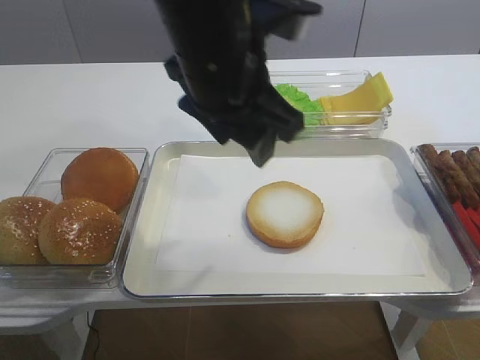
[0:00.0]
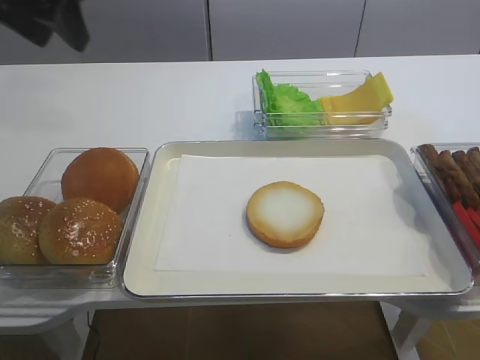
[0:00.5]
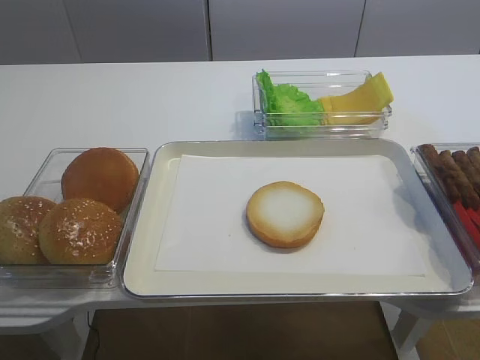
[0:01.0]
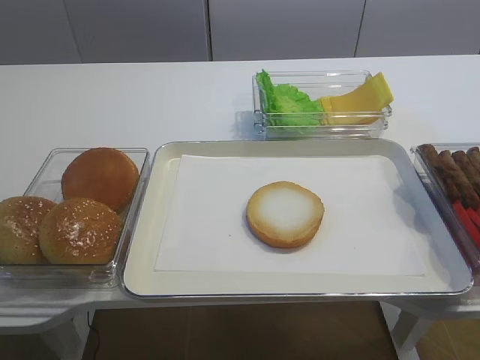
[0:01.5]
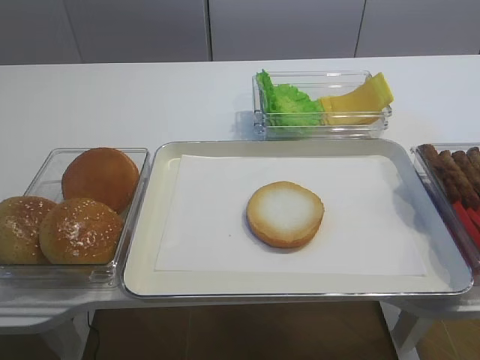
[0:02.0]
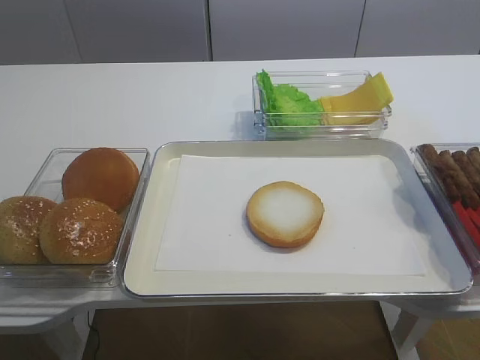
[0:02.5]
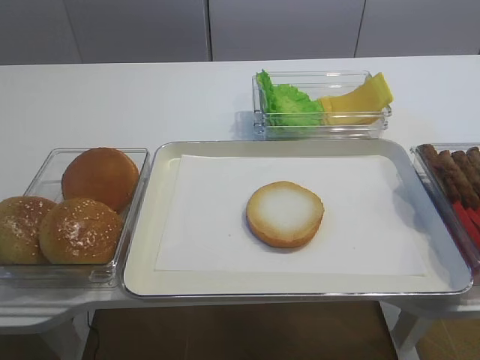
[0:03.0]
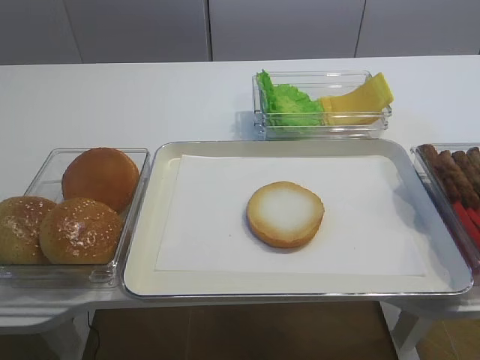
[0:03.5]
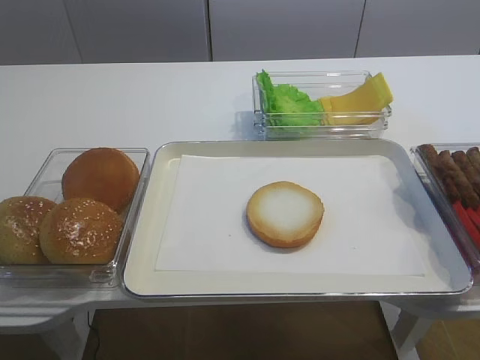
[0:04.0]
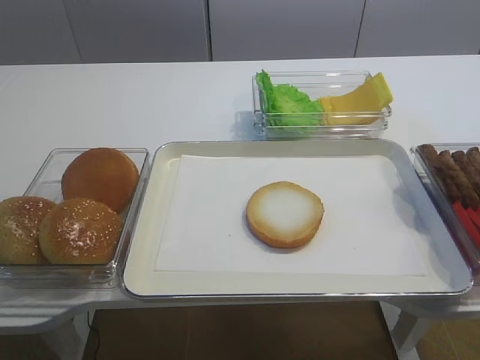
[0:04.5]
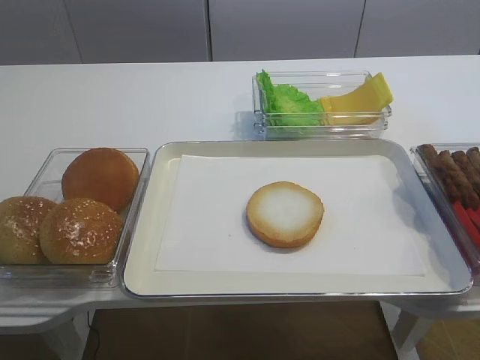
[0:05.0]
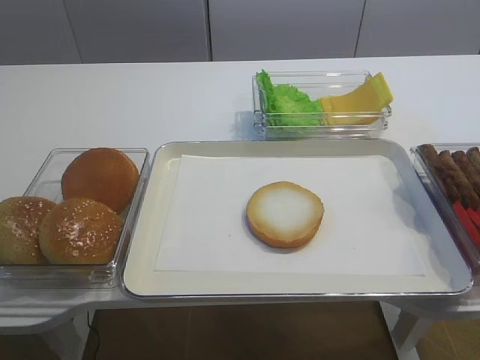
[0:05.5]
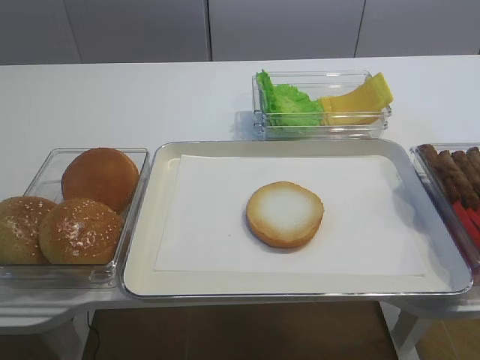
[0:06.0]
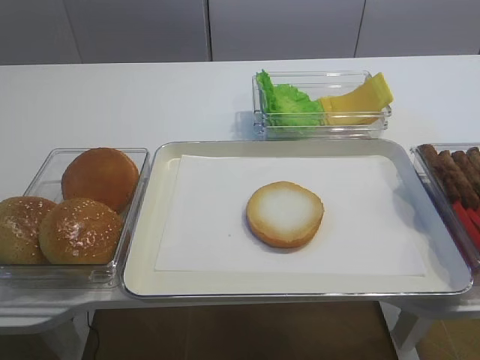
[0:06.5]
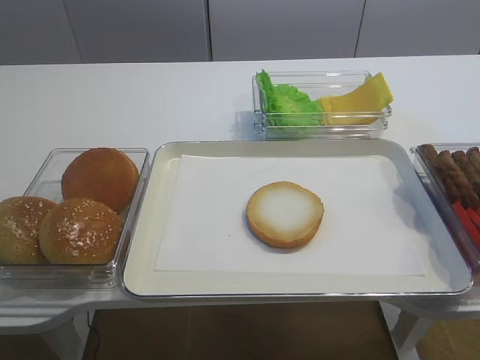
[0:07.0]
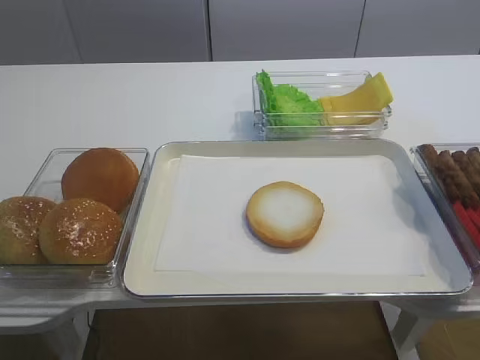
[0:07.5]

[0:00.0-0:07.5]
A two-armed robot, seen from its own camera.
0:00.0 to 0:02.0: The left gripper shifts roughly 40 cm to the left and backward.
0:04.0 to 0:07.5: Neither gripper changes place.

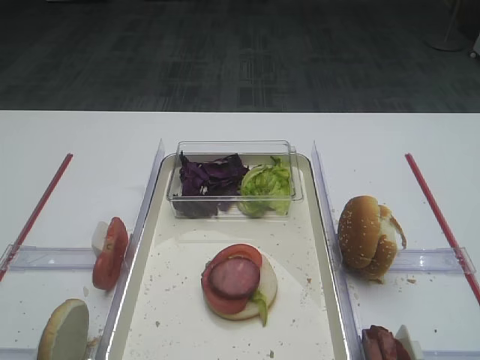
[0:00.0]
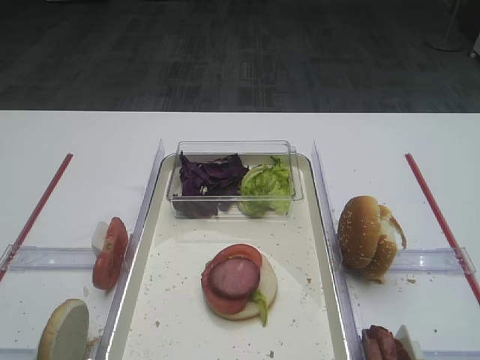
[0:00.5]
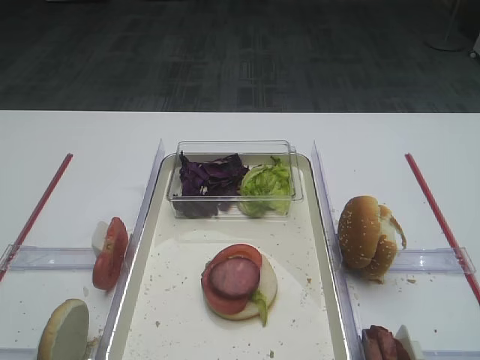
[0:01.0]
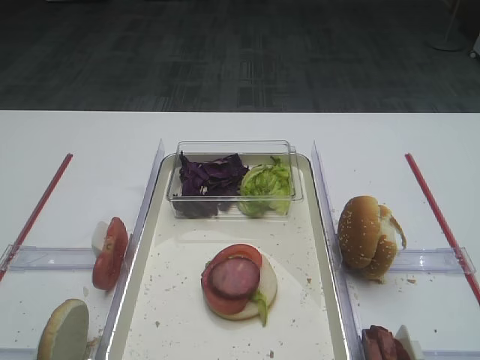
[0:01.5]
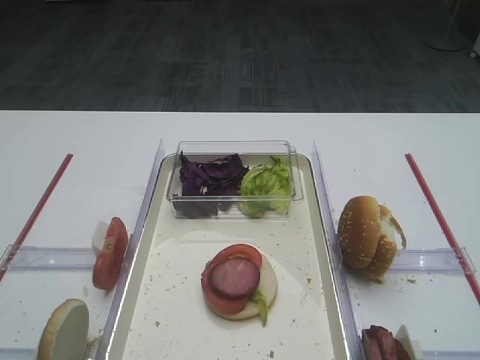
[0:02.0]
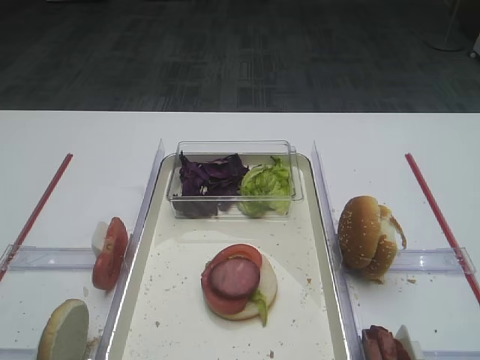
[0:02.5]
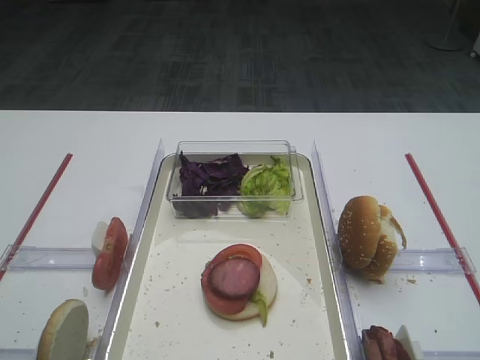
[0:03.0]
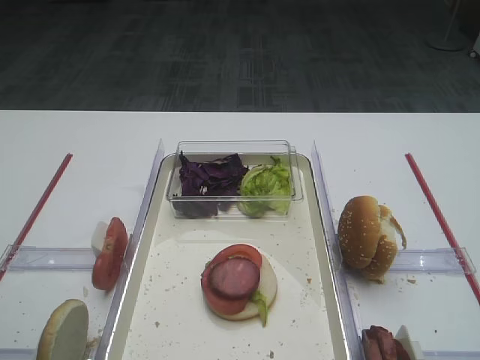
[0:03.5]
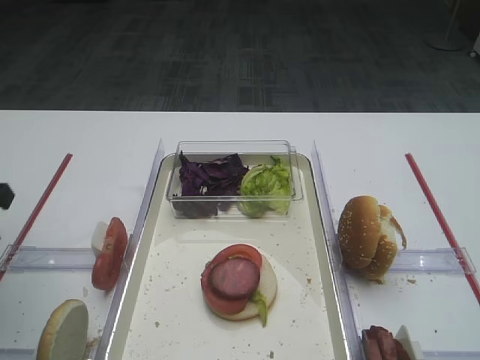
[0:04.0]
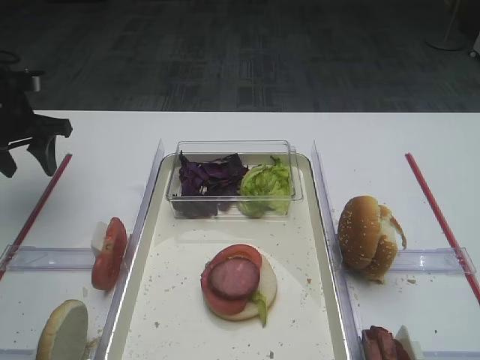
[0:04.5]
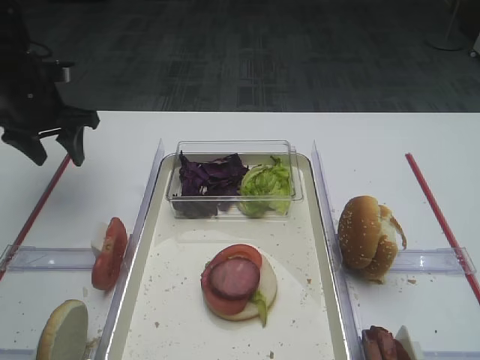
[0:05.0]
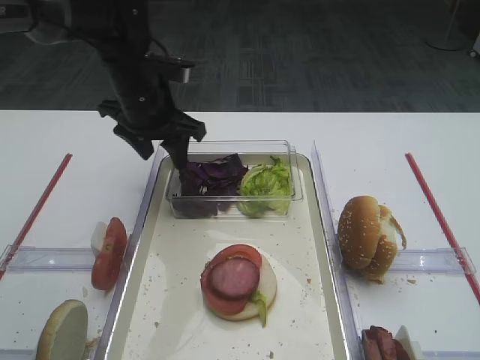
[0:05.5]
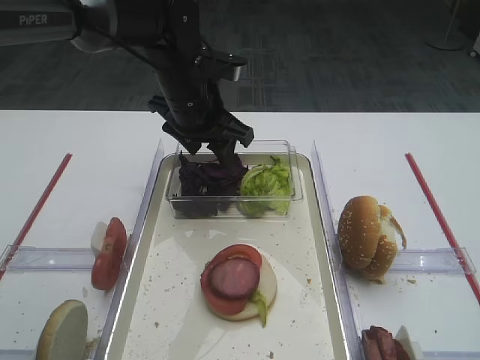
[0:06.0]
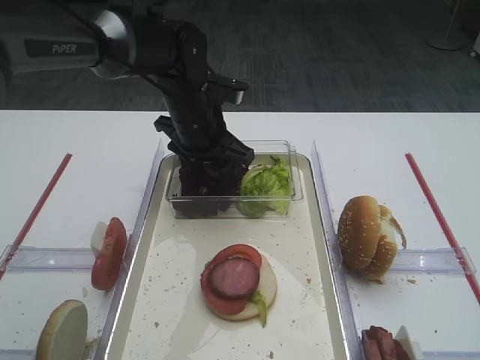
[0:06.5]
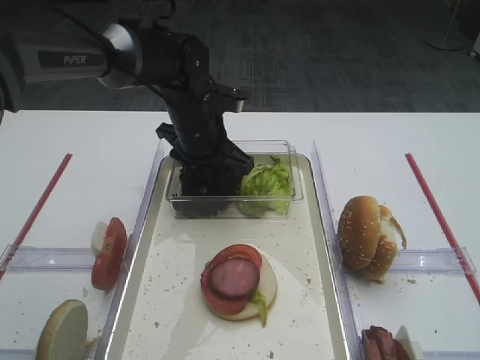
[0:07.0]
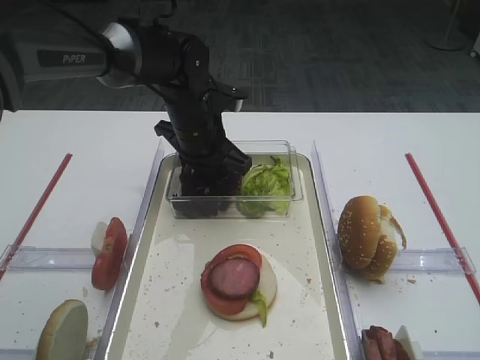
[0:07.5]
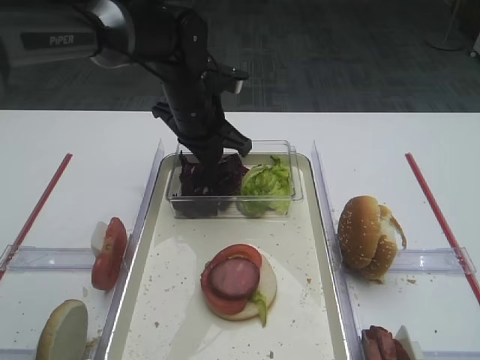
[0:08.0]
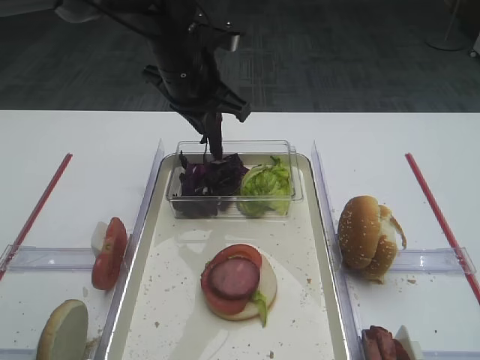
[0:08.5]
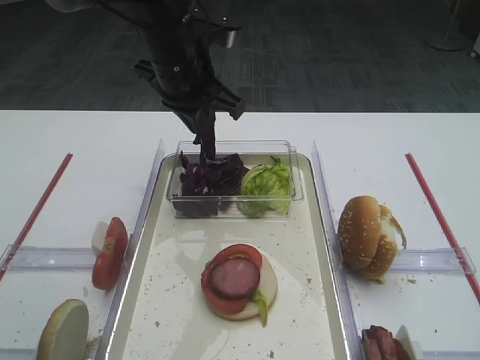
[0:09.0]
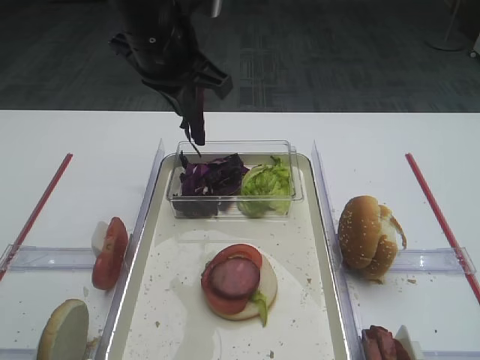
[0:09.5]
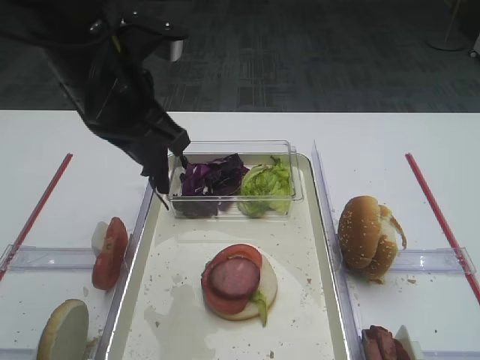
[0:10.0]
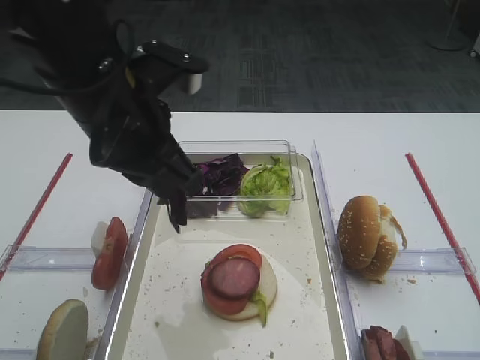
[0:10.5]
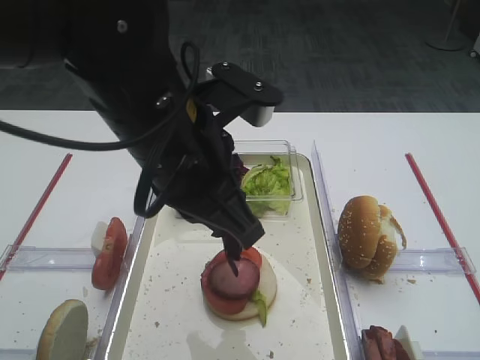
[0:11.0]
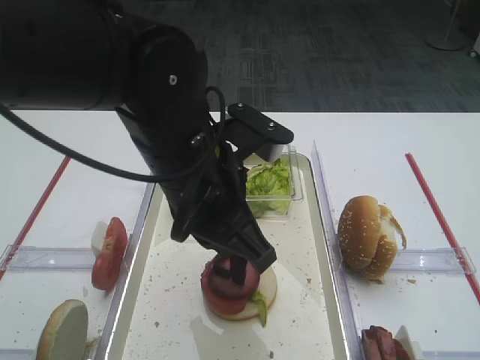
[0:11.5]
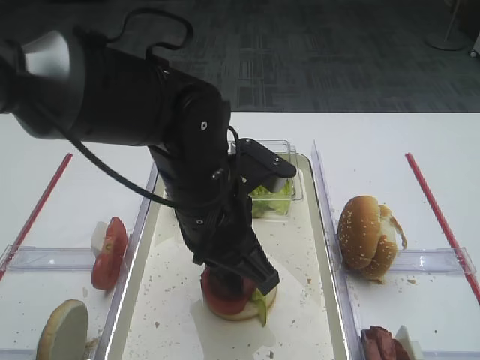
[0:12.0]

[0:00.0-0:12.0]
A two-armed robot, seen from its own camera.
Step, 0:00.0 to 0:08.0: Pick up the purple cabbage with the left gripper.
0:02.0 to 0:04.0: The left gripper heads forward, covering some 25 cm.
0:04.0 to 0:06.0: The left gripper moves to the right and forward, approximately 30 cm.
0:06.0 to 0:08.0: The left gripper closes.
0:08.0 to 0:10.0: The left gripper goes approximately 15 cm backward, upward and to the left.
0:10.0 to 0:12.0: The left gripper travels to the right and downward by about 15 cm.

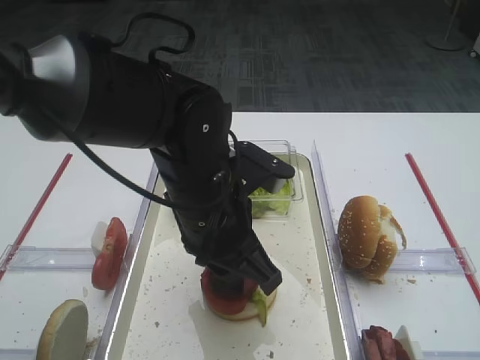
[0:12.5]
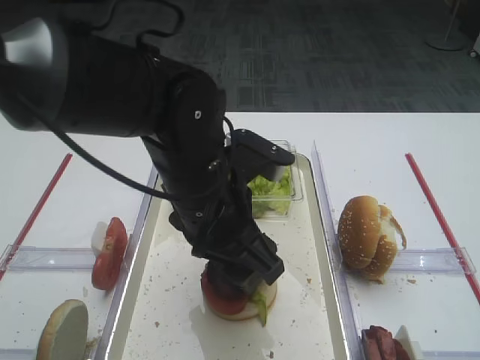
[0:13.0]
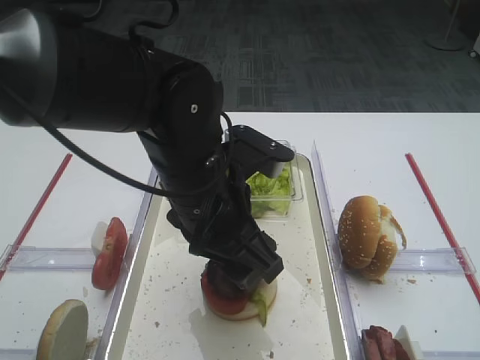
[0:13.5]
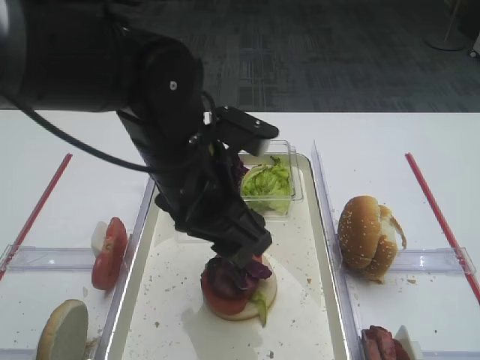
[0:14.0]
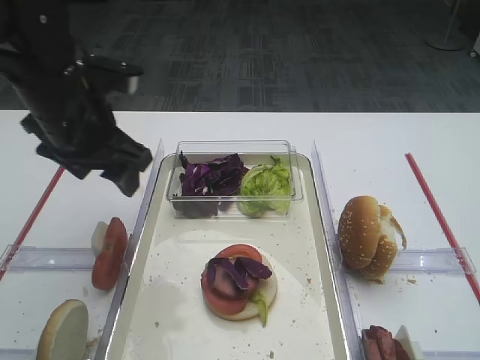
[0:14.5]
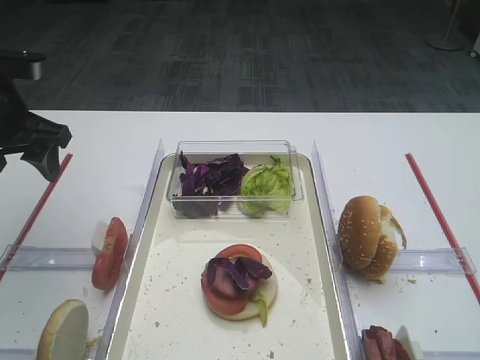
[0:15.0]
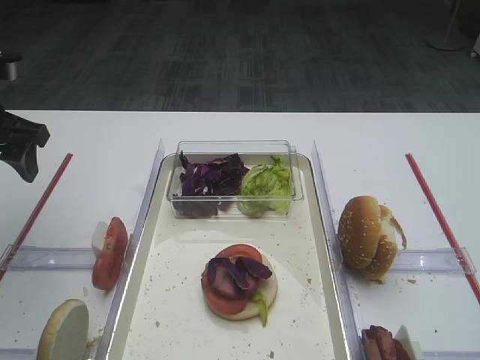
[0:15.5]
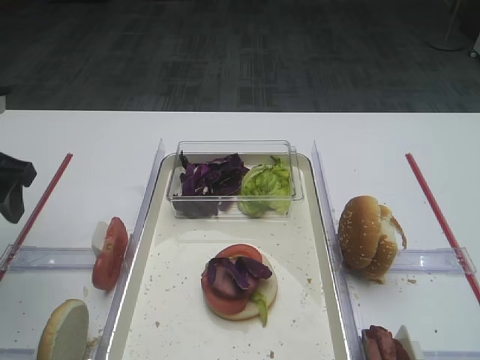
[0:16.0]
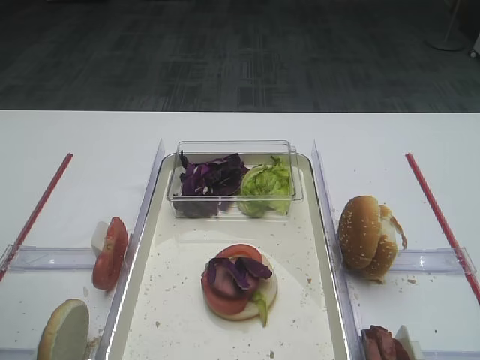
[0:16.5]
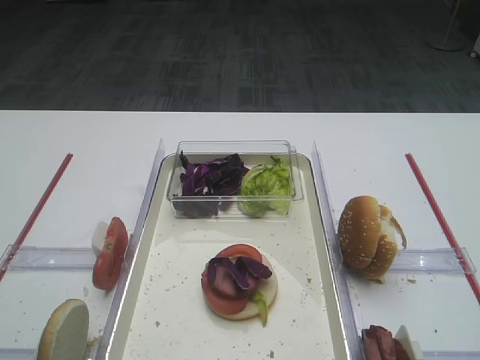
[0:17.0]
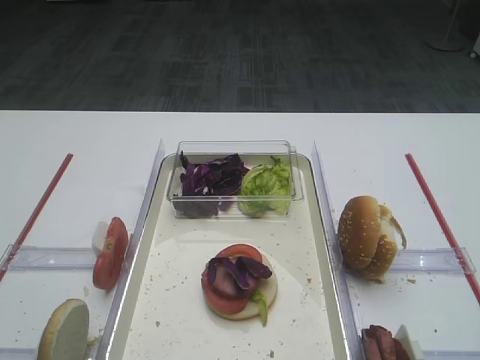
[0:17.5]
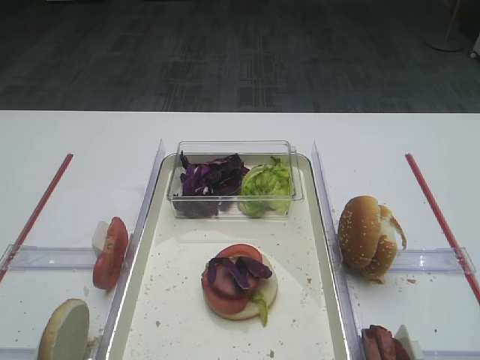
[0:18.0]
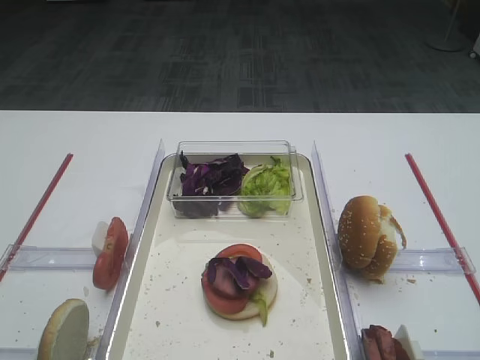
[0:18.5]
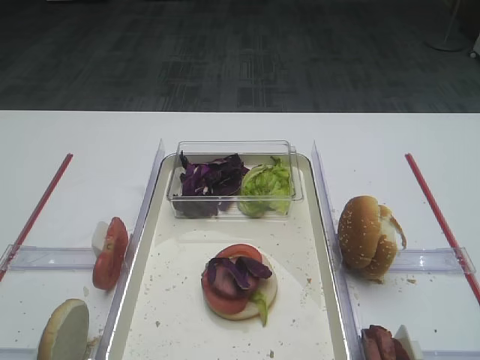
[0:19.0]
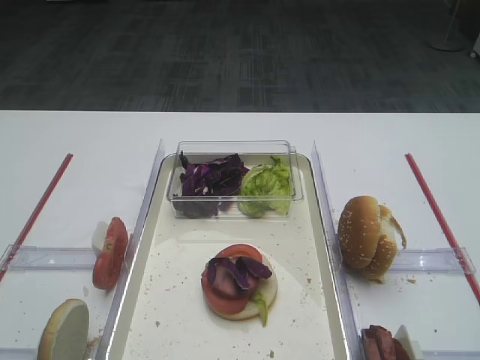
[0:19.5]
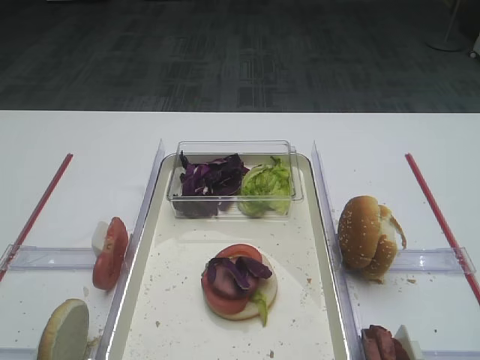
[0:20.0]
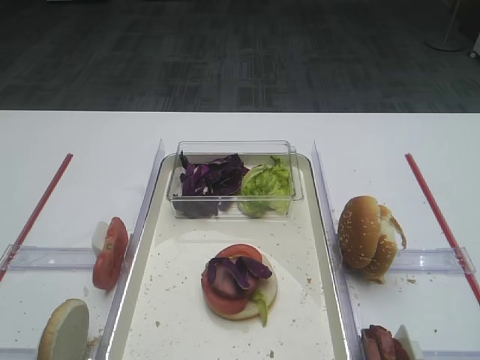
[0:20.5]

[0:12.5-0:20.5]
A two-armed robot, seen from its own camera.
0:12.5 to 0:14.5: The left gripper travels to the left and forward by approximately 15 cm, and opens.
0:14.5 to 0:16.5: The left gripper moves backward and to the left, approximately 20 cm.
0:18.5 to 0:20.5: Neither gripper changes place.
